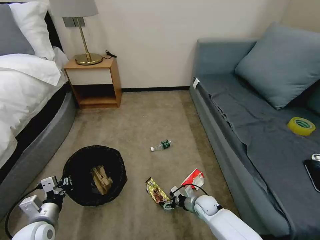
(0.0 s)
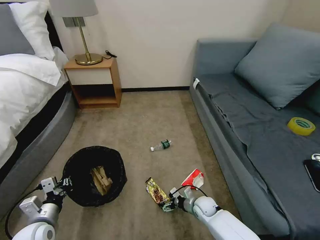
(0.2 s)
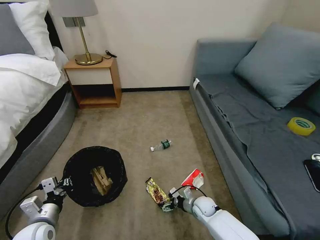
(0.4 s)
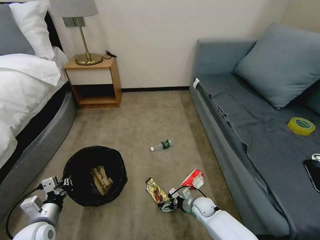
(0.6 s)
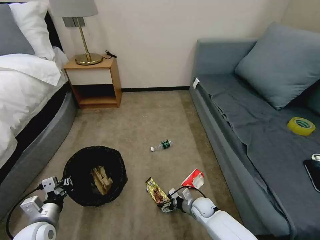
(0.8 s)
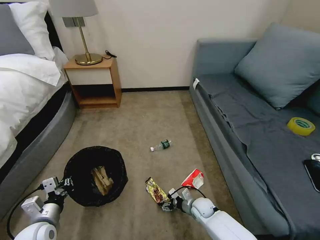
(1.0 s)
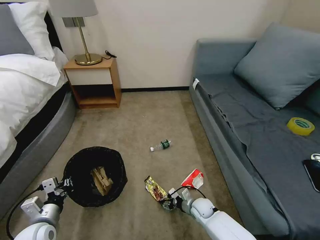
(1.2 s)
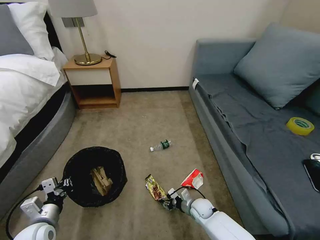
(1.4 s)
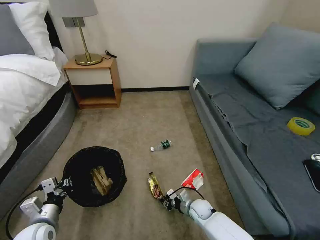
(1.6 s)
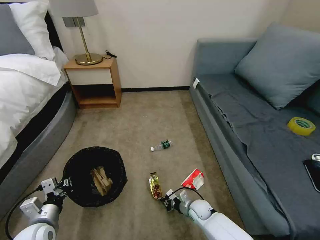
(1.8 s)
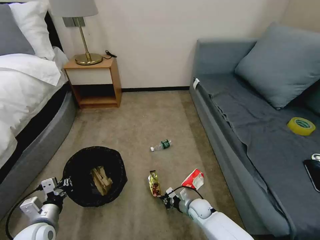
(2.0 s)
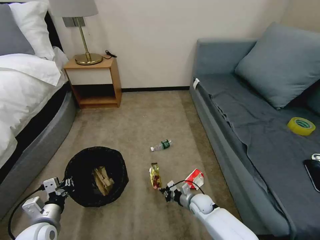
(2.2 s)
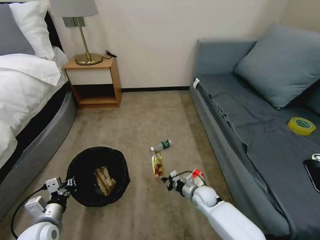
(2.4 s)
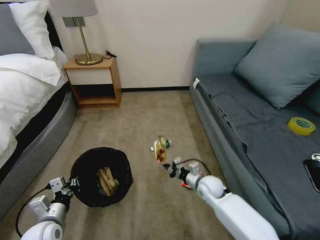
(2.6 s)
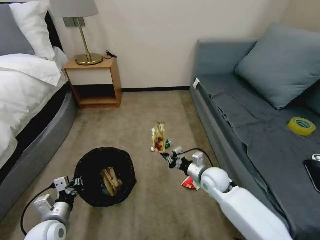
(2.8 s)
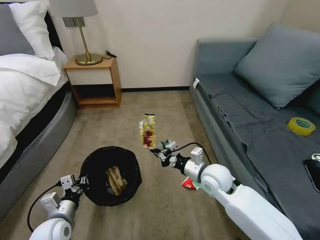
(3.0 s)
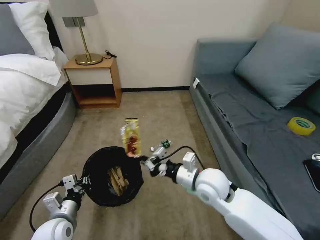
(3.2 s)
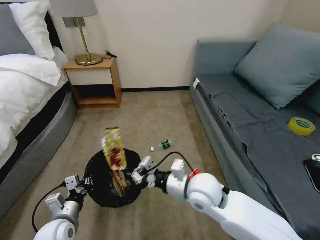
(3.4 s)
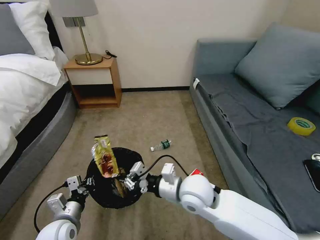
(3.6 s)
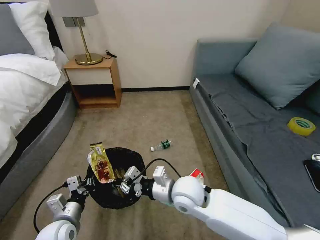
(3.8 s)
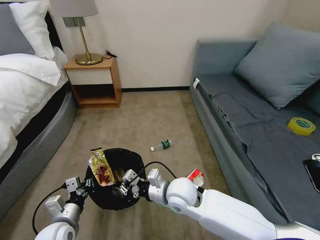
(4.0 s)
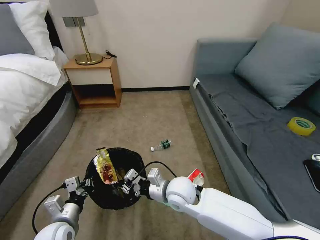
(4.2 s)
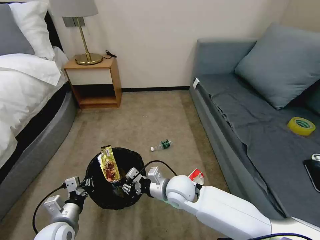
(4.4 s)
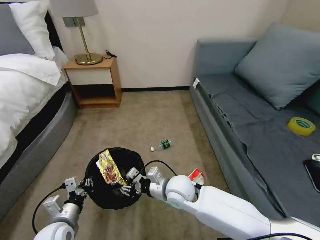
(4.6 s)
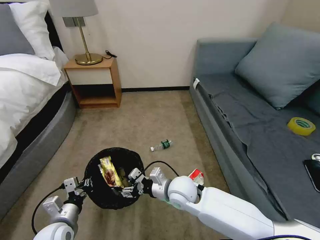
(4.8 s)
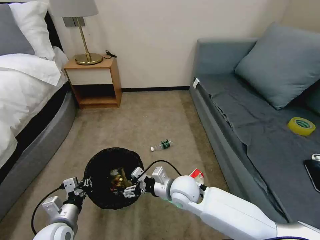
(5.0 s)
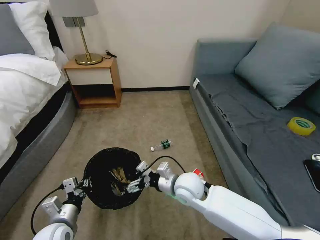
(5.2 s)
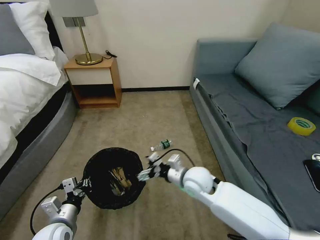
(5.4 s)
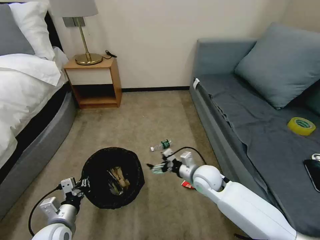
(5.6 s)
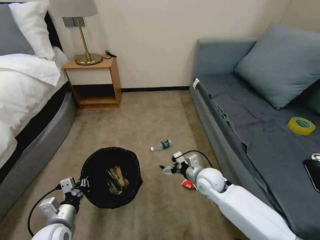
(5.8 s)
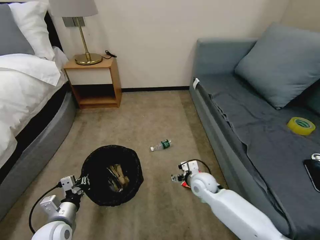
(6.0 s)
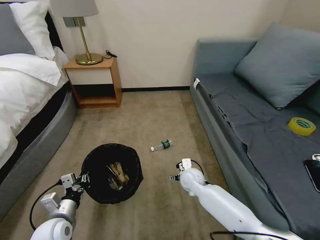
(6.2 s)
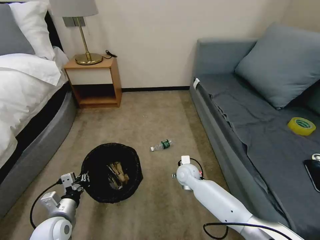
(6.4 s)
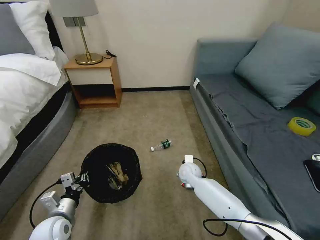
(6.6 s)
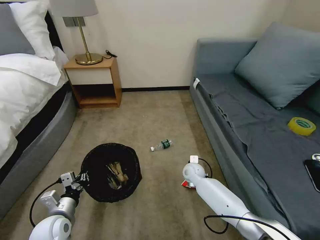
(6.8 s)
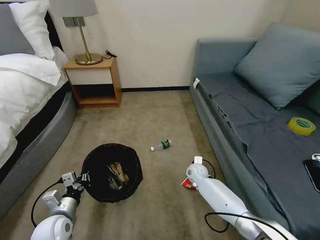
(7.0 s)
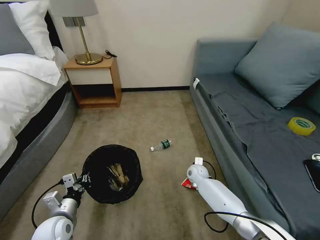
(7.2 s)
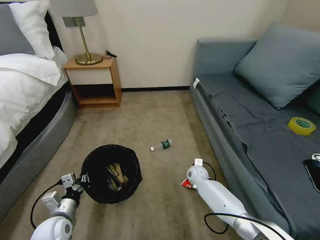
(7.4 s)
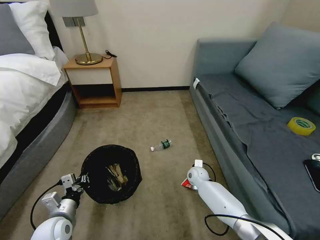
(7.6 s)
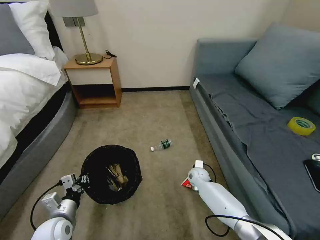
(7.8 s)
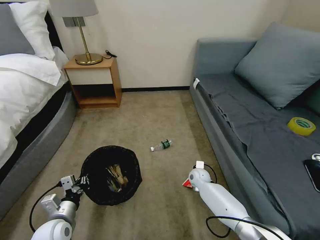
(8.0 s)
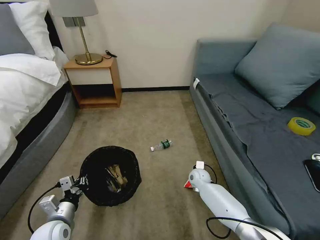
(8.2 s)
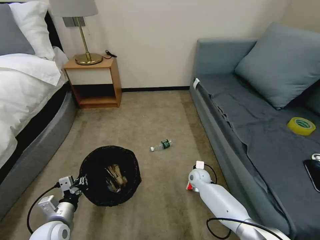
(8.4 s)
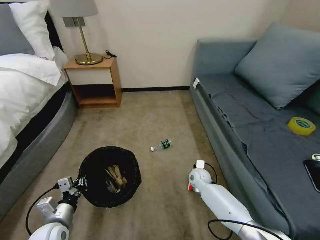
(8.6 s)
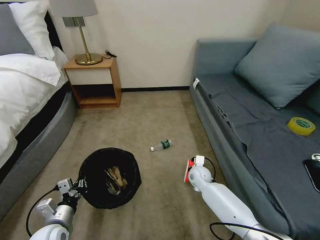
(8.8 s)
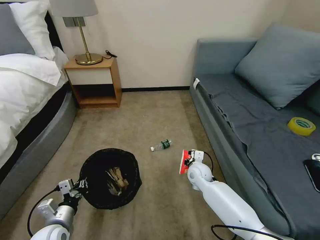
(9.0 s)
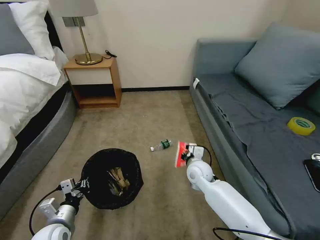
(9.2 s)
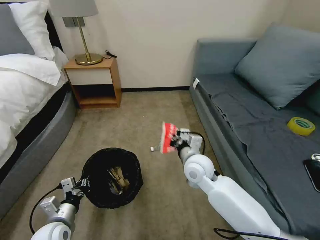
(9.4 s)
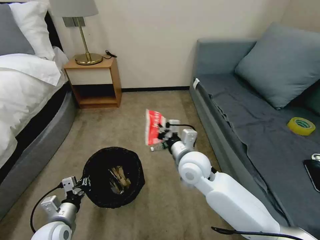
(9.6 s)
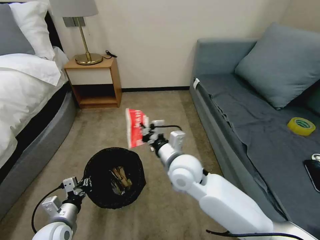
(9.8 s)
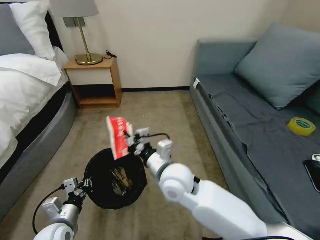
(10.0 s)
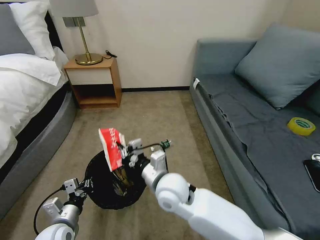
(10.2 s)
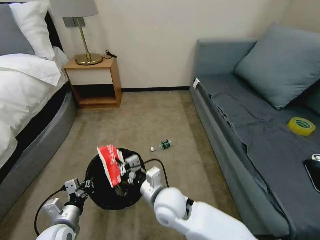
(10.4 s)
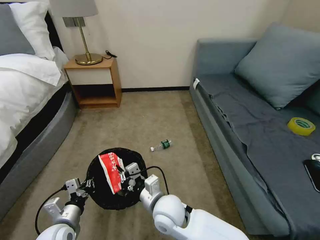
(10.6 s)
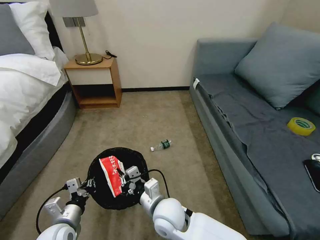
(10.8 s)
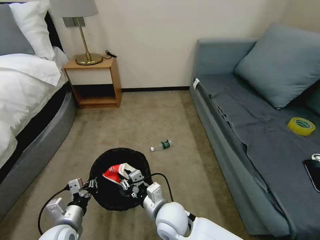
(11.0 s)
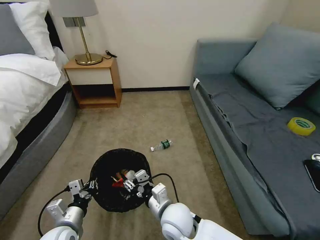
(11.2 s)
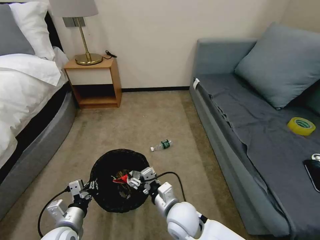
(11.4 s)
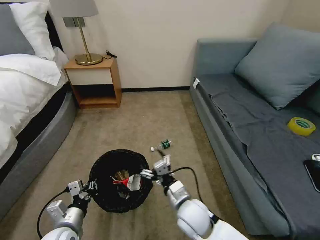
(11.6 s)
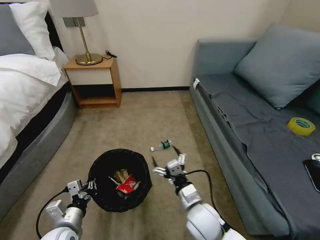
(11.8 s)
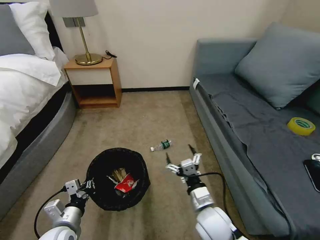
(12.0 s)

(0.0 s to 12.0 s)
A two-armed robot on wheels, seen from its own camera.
Task of the whole recording: Pick up the trash bin, then pick up the garbage on the floor and place it into the trash bin.
0.0 s - 1.6 s: The right gripper closes up.
1.6 s - 3.0 s: The right gripper heads upward, covering roughly 25 cm.
3.0 s - 4.4 s: The right gripper shifts roughly 10 cm to the left.
4.4 s - 6.0 s: The right gripper is displaced to the right, downward and forward by approximately 15 cm, and opens up.
6.0 s - 7.6 s: The right gripper moves downward and forward, approximately 15 cm.
7.6 s - 9.0 s: The right gripper shifts approximately 10 cm upward, and closes its fingers.
9.0 s - 10.4 s: The right gripper travels backward, to the left and upward by roughly 25 cm.
10.4 s - 12.0 s: The right gripper travels to the right by about 15 cm, and opens its fingers.

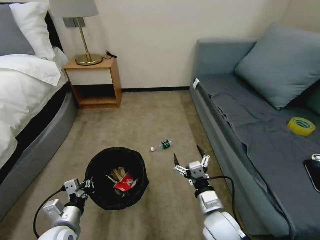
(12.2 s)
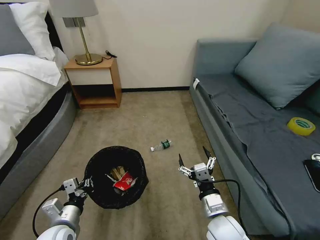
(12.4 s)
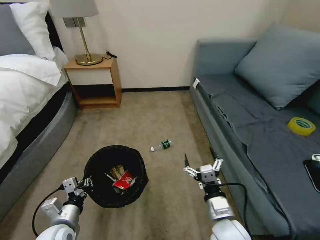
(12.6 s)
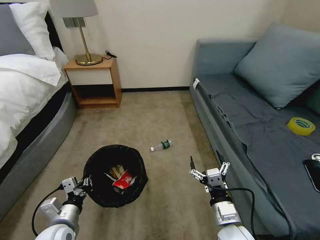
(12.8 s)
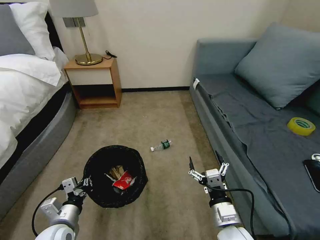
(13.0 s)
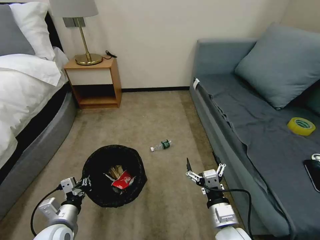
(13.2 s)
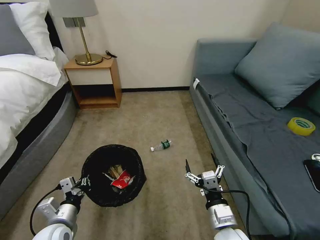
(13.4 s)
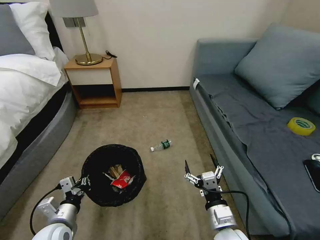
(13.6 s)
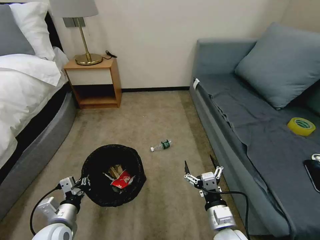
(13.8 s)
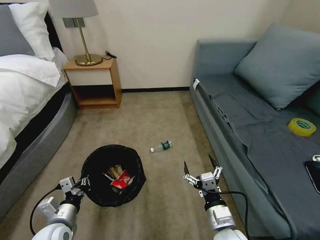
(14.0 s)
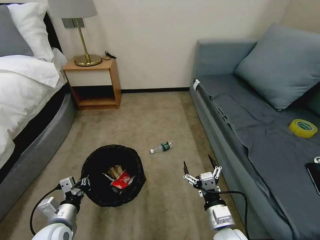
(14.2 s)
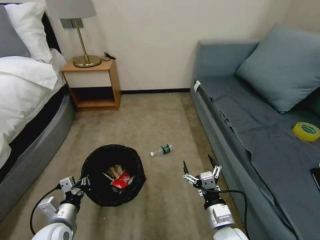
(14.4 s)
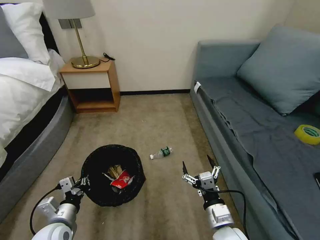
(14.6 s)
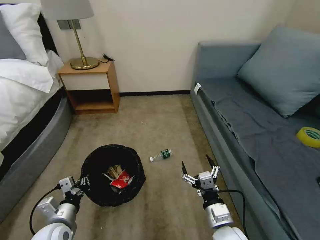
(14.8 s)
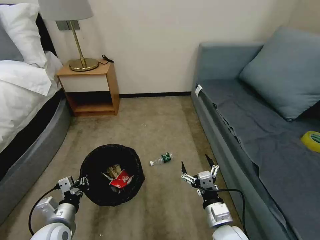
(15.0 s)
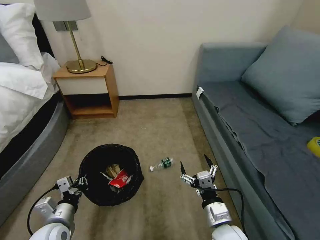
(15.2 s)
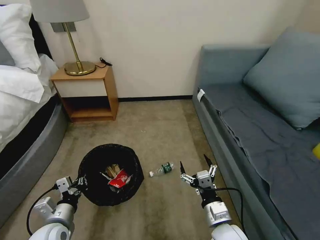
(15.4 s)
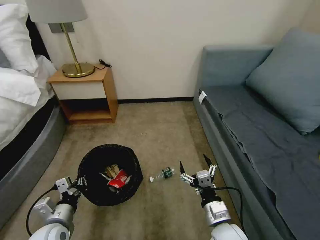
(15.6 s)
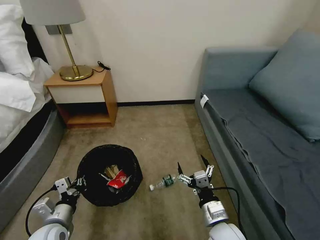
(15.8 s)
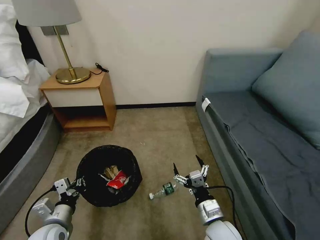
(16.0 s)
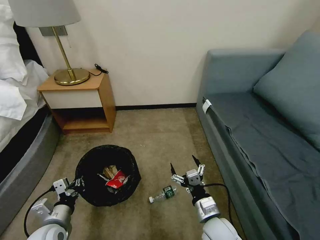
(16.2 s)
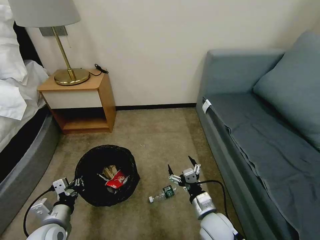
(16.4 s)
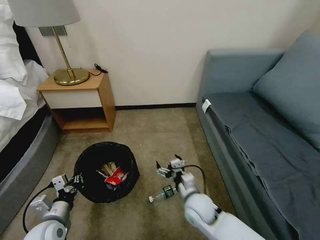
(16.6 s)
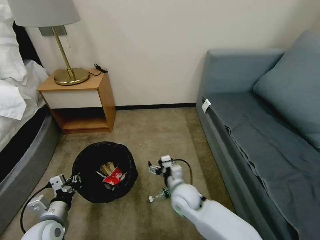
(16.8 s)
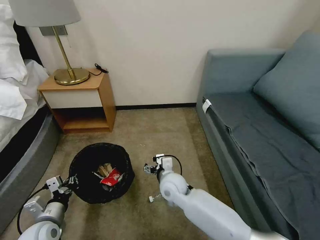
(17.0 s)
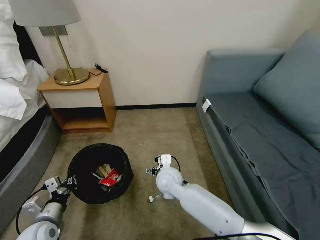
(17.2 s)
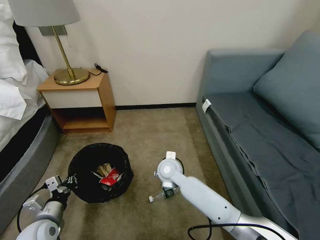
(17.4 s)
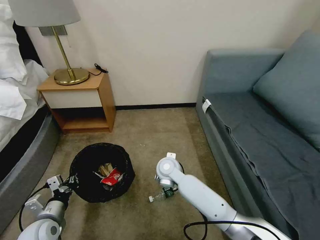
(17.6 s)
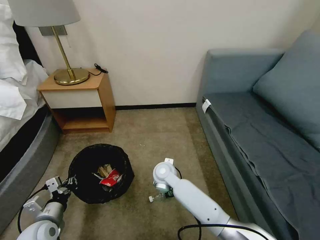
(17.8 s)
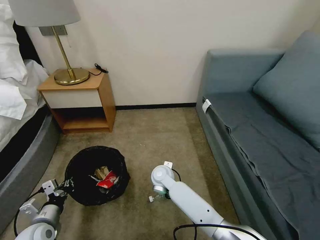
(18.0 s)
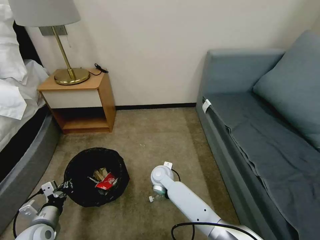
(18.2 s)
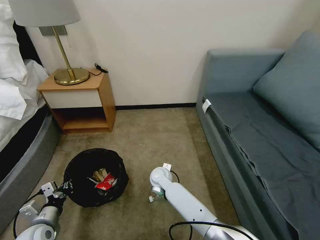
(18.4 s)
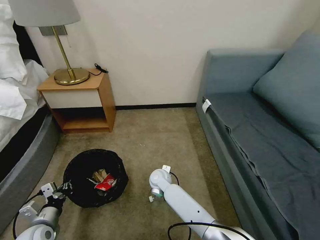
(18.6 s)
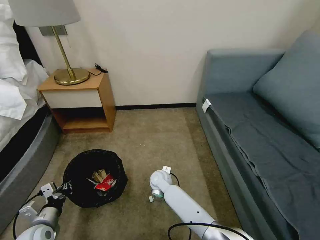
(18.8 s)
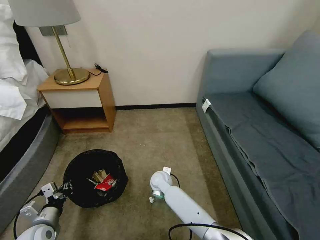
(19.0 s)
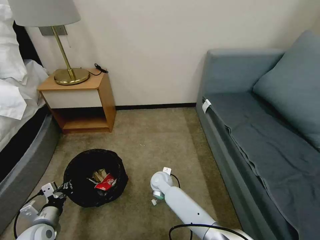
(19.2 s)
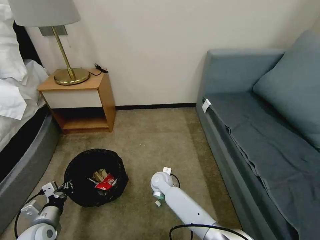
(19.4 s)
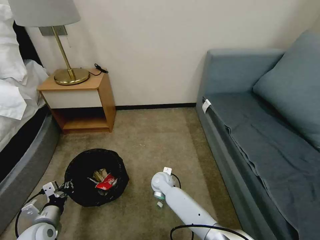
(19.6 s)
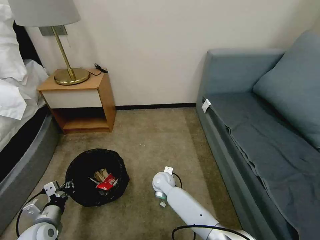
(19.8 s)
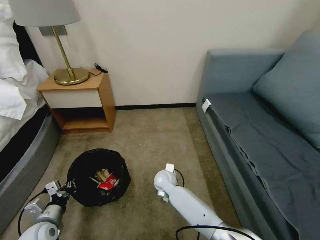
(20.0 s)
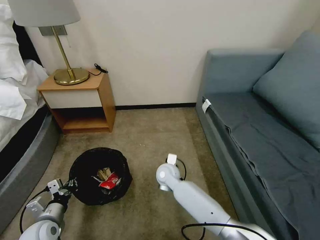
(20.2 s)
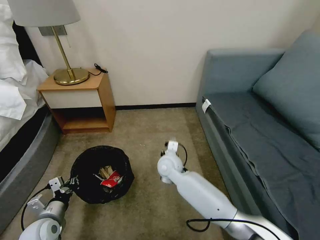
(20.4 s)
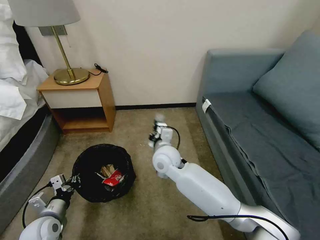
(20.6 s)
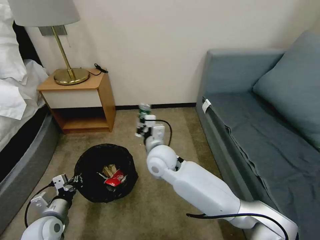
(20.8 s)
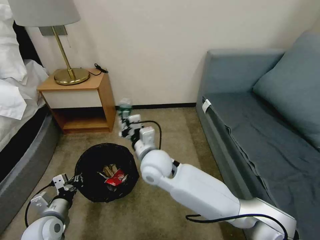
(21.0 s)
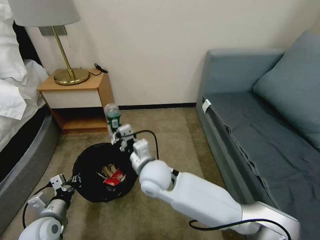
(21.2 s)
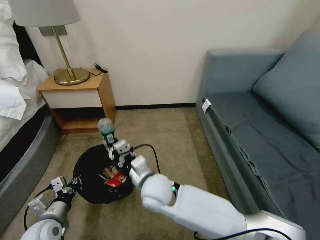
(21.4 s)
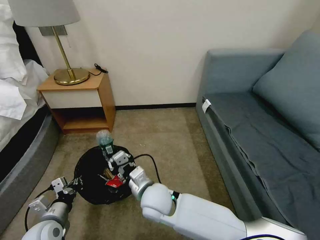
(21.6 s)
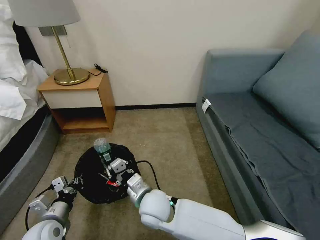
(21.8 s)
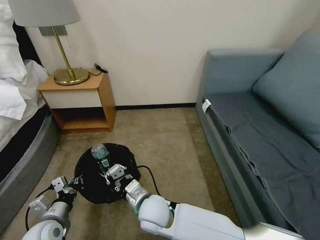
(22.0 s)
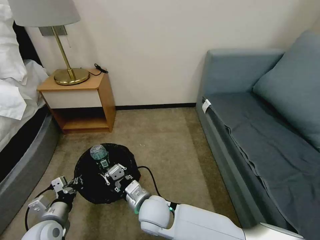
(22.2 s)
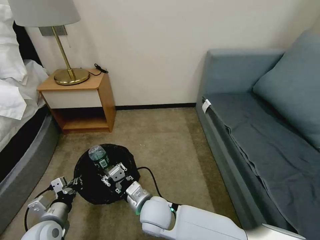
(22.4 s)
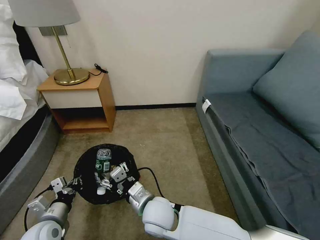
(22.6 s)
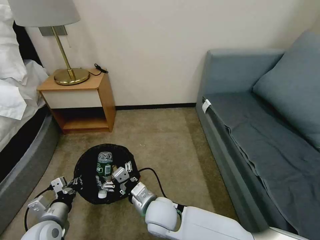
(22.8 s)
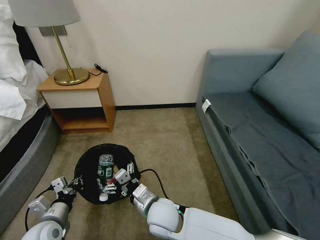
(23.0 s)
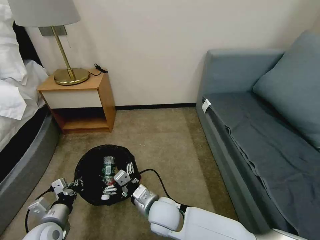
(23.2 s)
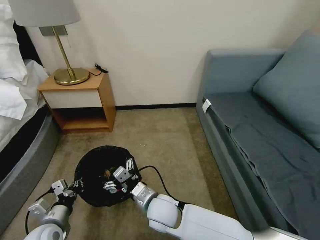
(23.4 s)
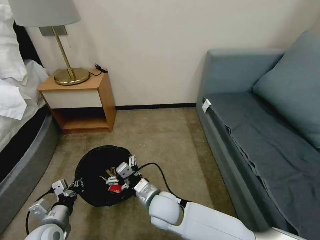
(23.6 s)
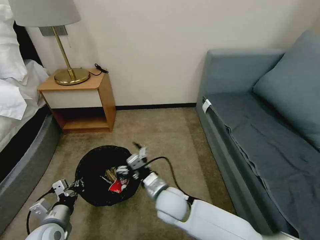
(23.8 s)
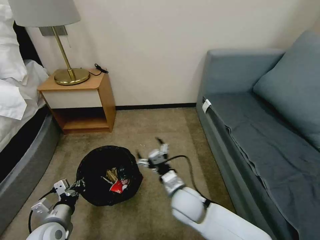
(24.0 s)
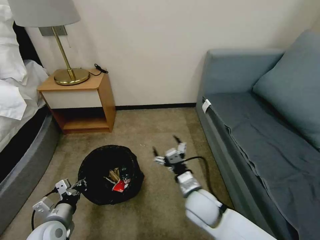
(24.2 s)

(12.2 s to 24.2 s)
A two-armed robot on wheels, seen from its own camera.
Task of the whole recording: Pick up the trash bin, then pick up the garbage on the floor and place it into the trash bin.
12.2 s - 13.8 s: The right gripper moves about 5 cm.
15.2 s - 16.6 s: The right gripper heads forward, covering approximately 5 cm.
16.6 s - 18.2 s: The right gripper heads forward and to the left, covering approximately 20 cm; the left gripper is displaced to the left by about 5 cm.
18.2 s - 19.8 s: The right gripper closes its fingers.
19.8 s - 21.2 s: The right gripper shifts roughly 20 cm upward.
21.2 s - 22.6 s: The right gripper heads backward and downward, covering about 10 cm, and opens up.
22.6 s - 24.2 s: The right gripper shifts some 15 cm to the right.
